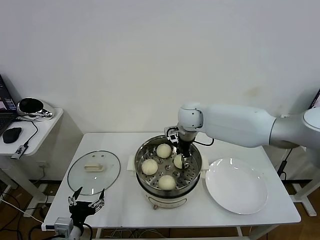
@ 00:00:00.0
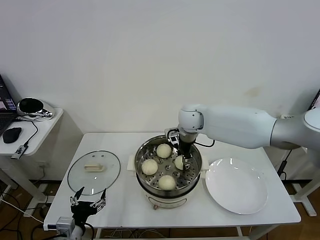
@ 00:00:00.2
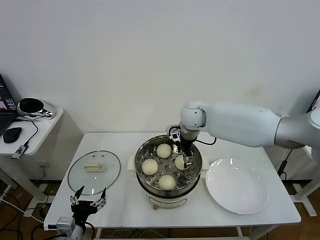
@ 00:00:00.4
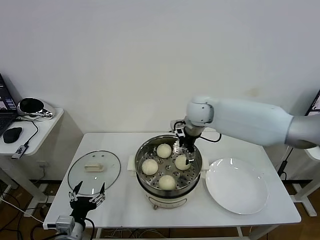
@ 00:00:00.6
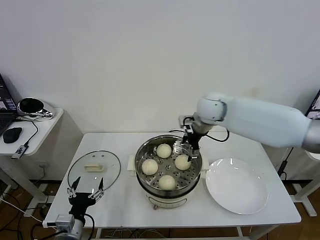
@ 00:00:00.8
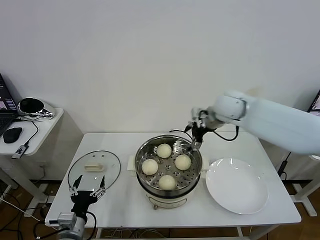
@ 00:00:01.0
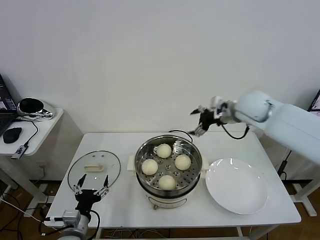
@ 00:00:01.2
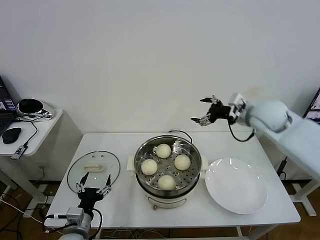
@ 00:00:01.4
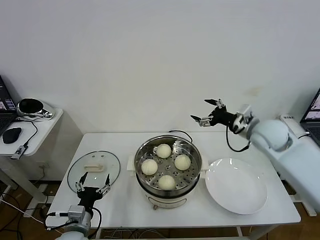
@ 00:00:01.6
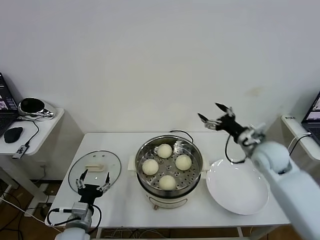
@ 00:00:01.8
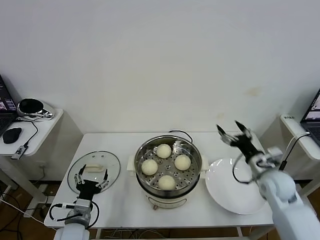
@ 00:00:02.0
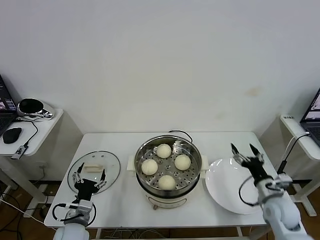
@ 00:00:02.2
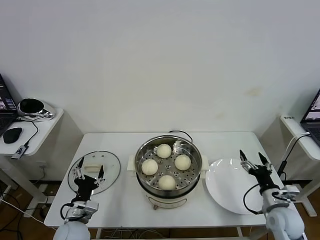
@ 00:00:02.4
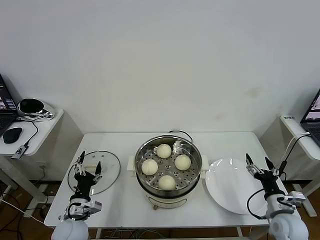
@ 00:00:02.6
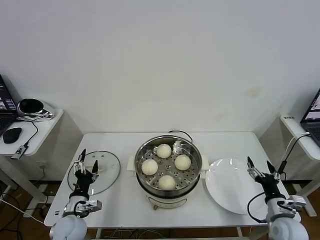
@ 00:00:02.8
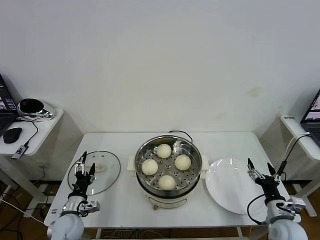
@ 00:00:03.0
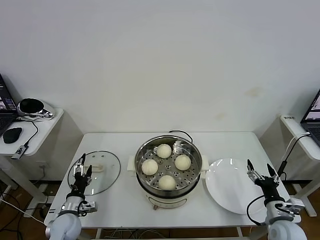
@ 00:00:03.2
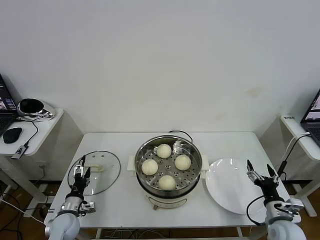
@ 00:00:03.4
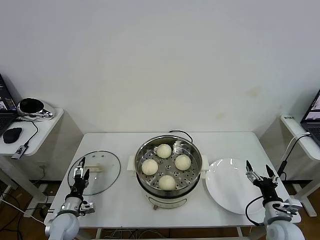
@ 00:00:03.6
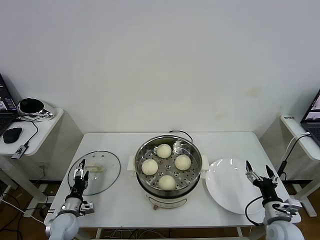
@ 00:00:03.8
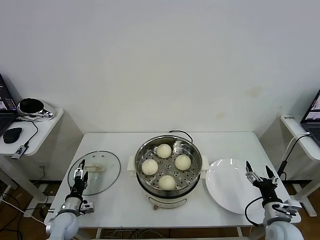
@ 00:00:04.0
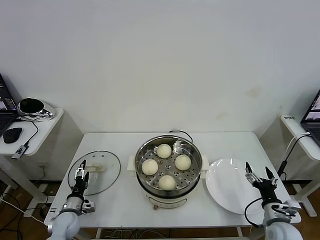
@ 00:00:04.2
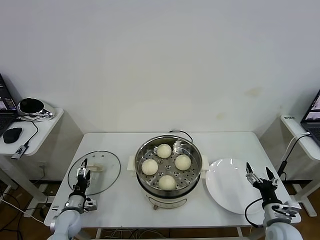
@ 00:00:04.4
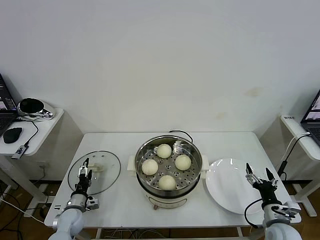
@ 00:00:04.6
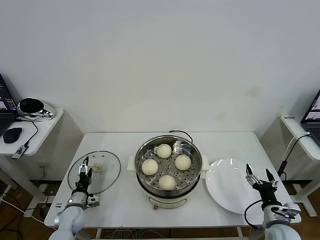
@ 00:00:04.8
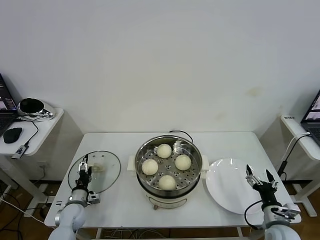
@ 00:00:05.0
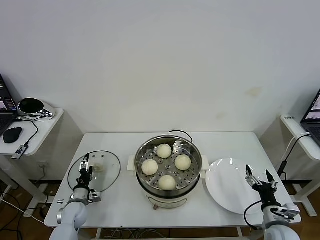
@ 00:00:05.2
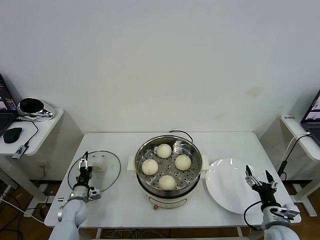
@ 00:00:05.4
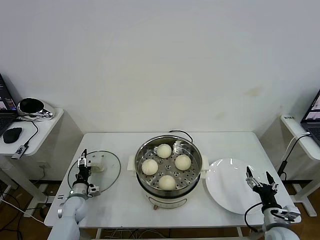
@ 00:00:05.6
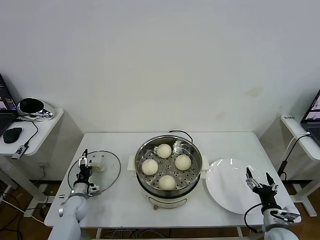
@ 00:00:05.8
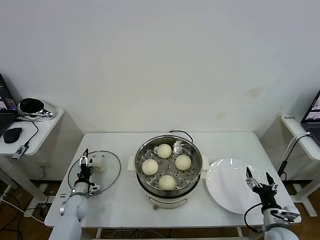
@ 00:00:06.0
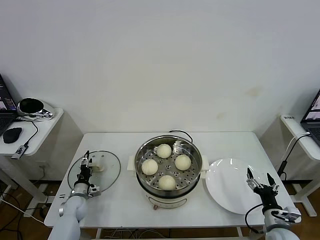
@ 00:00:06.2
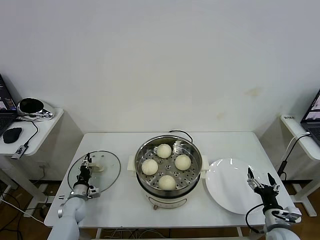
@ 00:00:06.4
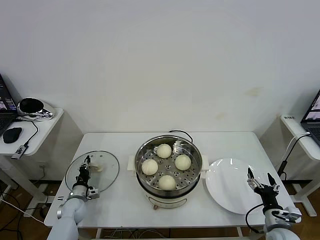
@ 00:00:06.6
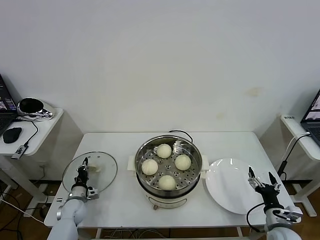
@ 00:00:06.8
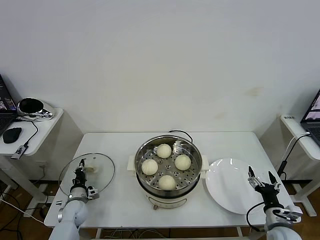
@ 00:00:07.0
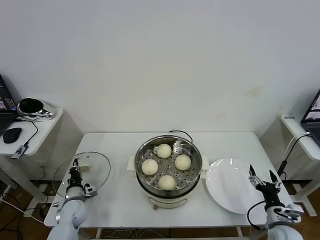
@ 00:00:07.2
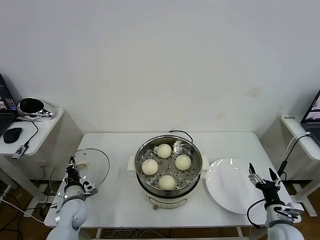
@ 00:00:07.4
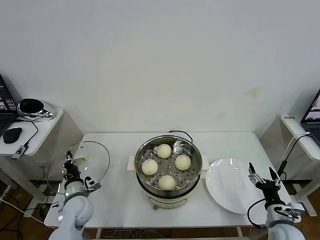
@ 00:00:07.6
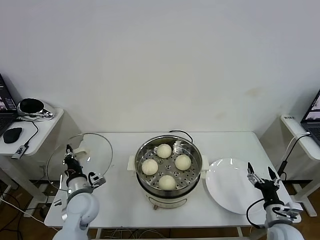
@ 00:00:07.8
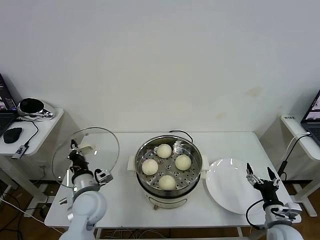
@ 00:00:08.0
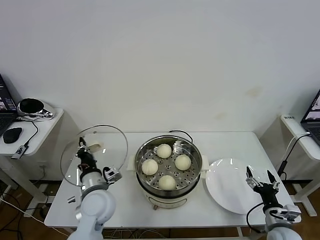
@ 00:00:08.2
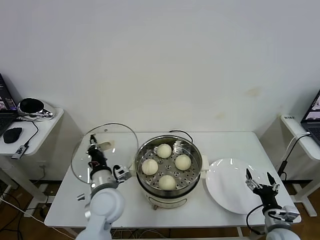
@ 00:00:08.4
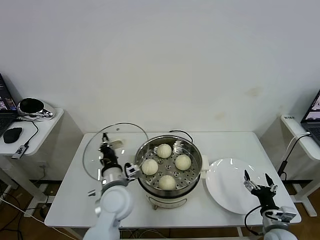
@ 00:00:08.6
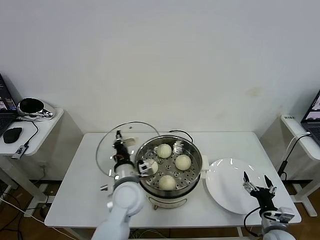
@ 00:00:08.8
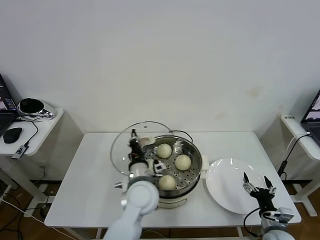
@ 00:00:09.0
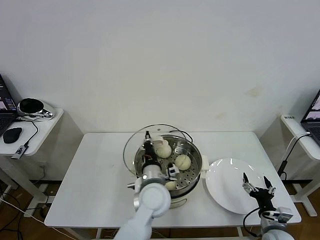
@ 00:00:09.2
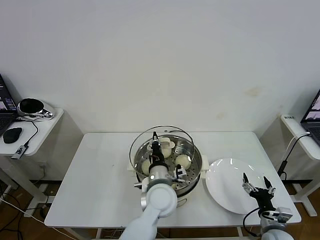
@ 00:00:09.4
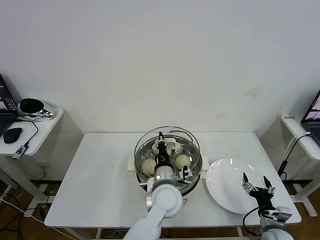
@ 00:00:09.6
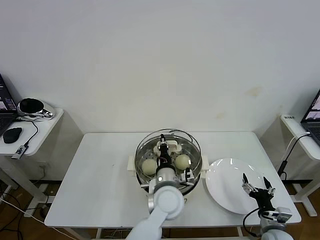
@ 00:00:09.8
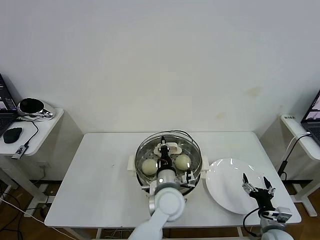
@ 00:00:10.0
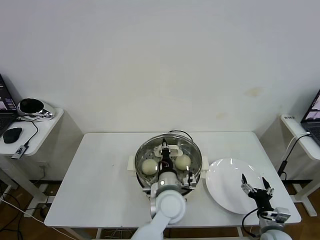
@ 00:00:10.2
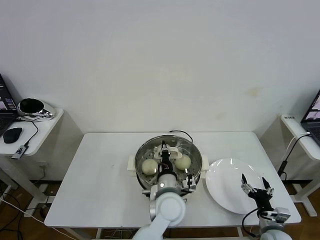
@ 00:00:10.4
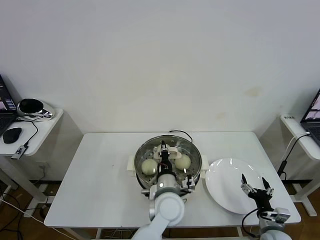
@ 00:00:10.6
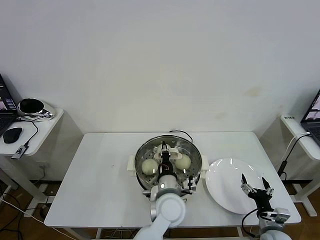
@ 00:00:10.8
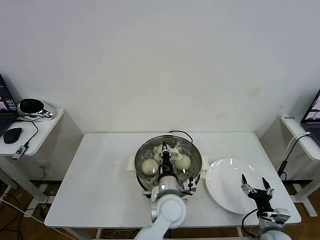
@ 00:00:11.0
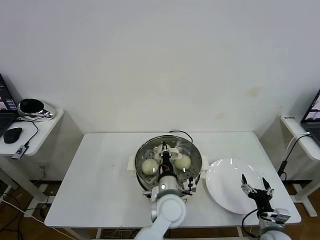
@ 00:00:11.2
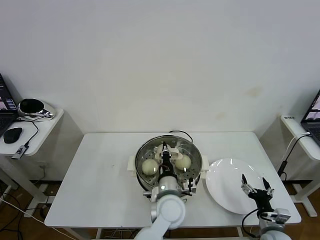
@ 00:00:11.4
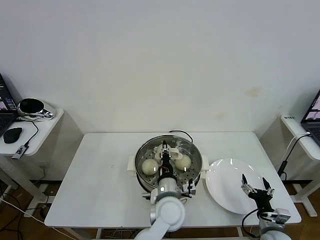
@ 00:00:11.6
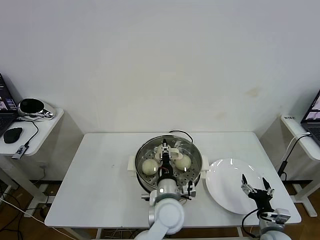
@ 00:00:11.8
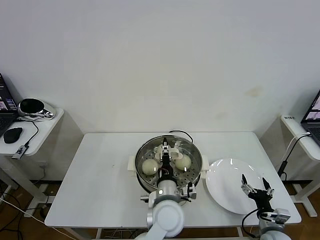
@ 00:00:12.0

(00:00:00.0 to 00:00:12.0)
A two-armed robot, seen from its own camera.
Task of the whole recording: take steamed baozi put them in steamer then cover it.
Step, 00:00:00.8 - 00:00:07.0: Grasp the pot lid with left gripper.
00:00:00.0 - 00:00:01.6: The left gripper shifts by approximately 5 cm, while the right gripper moves to the right and backward, about 25 cm, and opens.
00:00:01.6 - 00:00:03.0: The right gripper is displaced downward and backward by about 30 cm; the left gripper travels forward and downward by about 10 cm.
00:00:03.0 - 00:00:04.4: The left gripper goes about 5 cm downward.
00:00:04.4 - 00:00:06.0: The left gripper shifts approximately 5 cm forward.
00:00:06.0 - 00:00:07.6: The left gripper moves upward and to the right, about 10 cm, and closes its fingers.
00:00:07.6 - 00:00:09.0: The left gripper is displaced to the right and upward by some 25 cm.
00:00:09.0 - 00:00:10.4: The left gripper heads to the right, covering roughly 10 cm.
00:00:10.4 - 00:00:12.0: The left gripper opens up.

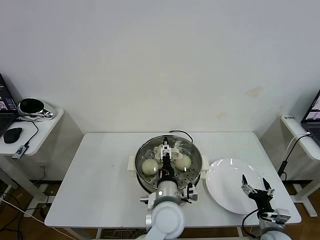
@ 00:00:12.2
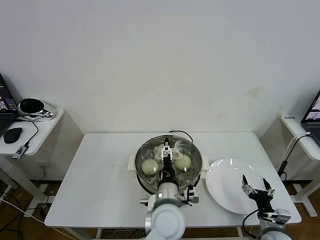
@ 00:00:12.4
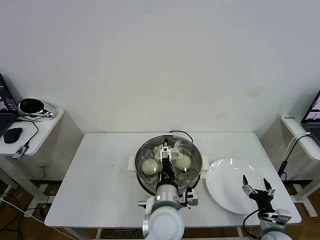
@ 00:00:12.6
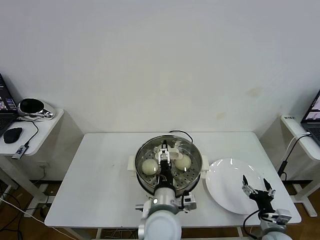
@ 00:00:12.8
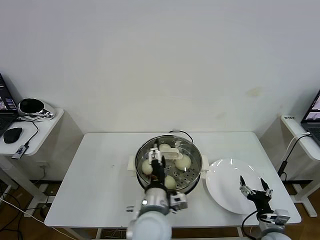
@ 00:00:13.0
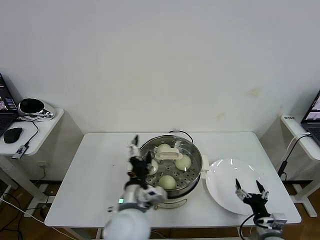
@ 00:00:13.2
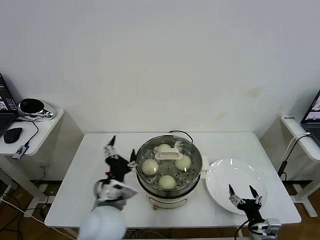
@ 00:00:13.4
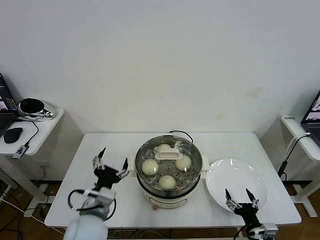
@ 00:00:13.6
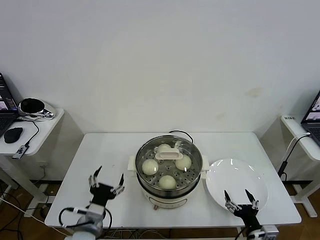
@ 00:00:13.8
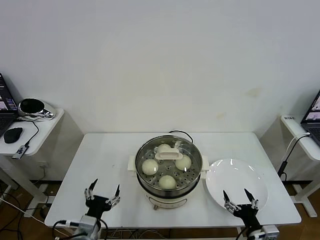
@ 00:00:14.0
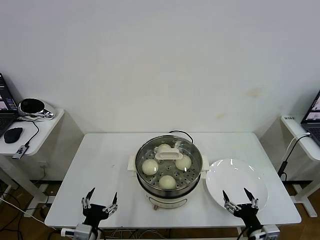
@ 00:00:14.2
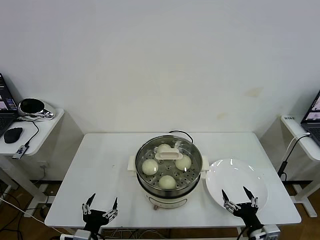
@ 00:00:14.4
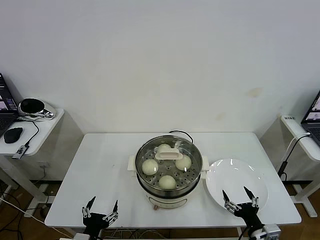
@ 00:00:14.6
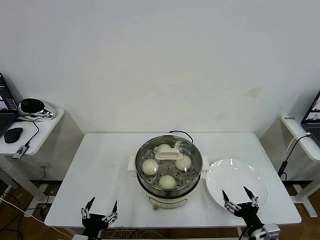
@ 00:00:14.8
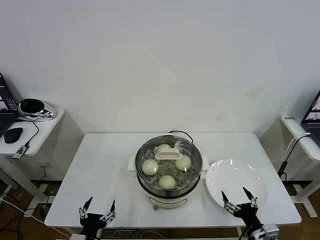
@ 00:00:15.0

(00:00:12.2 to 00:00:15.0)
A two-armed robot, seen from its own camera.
Task of the whole recording: take steamed baozi put them in steamer then cover it.
00:00:12.2 - 00:00:13.6: The left gripper heads to the left, covering roughly 20 cm. The right gripper moves about 5 cm.
00:00:13.6 - 00:00:15.0: The left gripper goes about 15 cm downward, backward and to the left.
